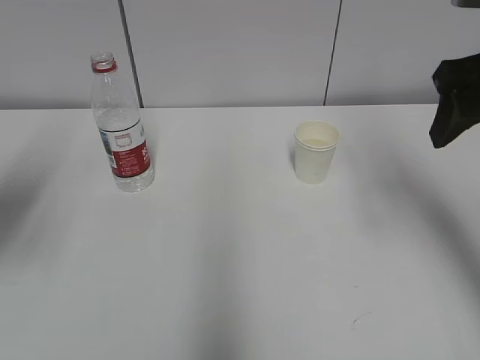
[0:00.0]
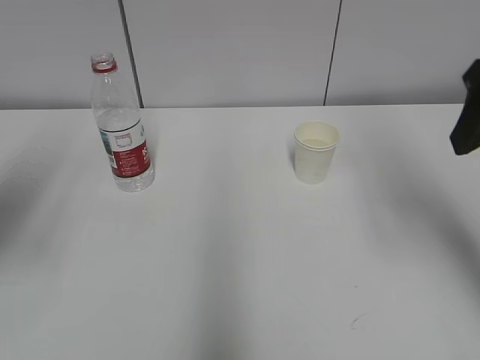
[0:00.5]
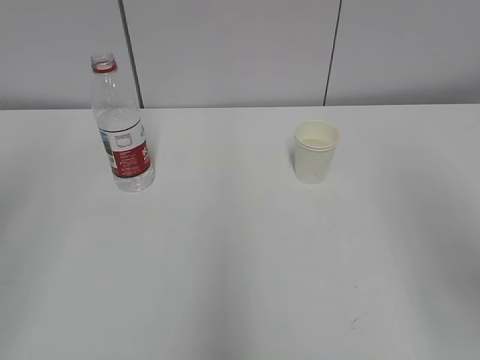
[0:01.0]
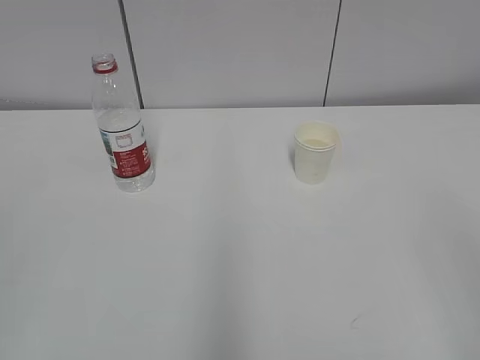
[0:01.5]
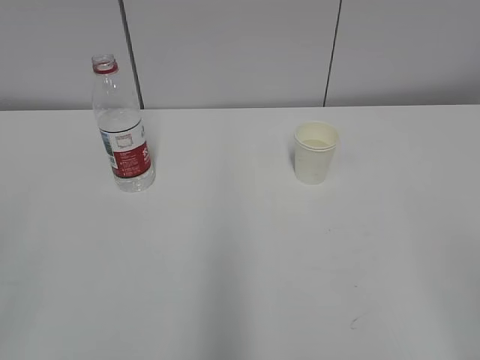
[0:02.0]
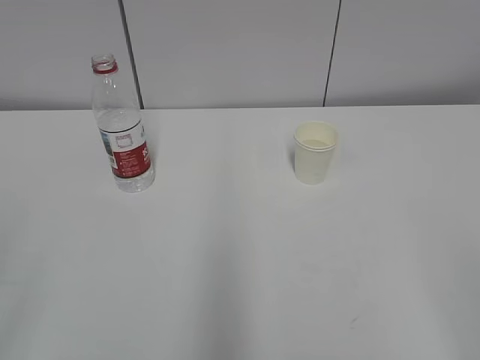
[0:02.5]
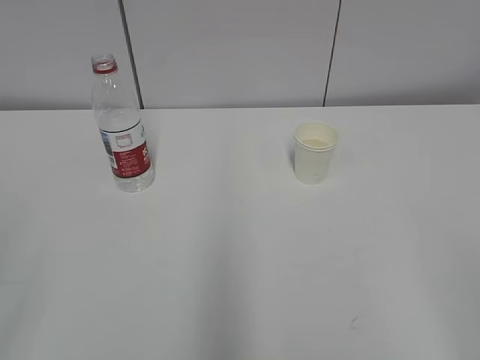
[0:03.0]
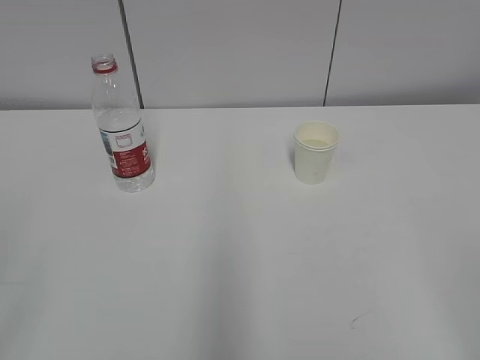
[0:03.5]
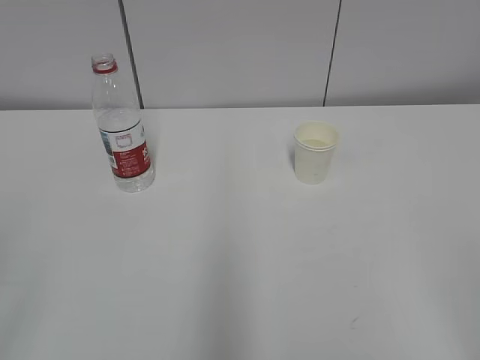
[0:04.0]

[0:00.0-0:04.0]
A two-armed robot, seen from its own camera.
0:00.0 to 0:02.0: Both grippers travel together backward, roughly 30 cm.
